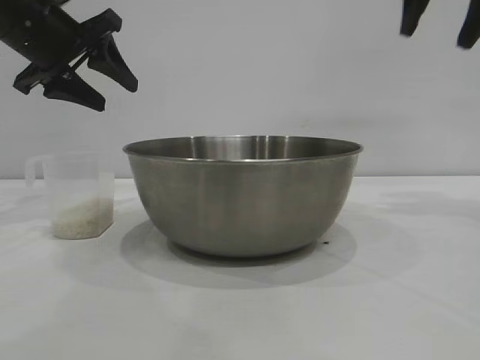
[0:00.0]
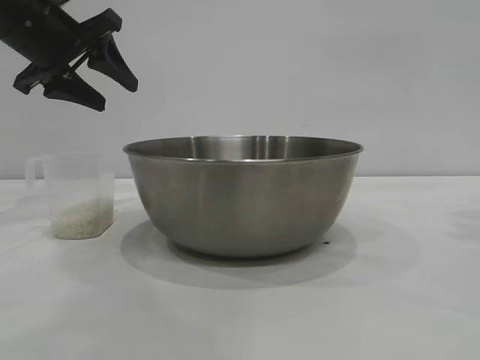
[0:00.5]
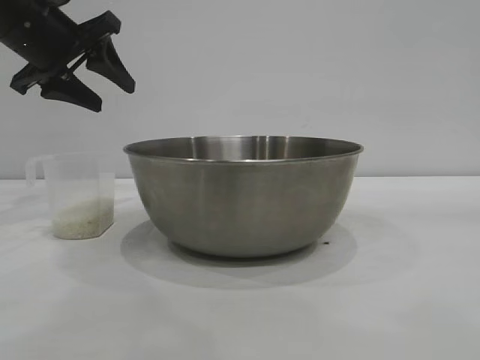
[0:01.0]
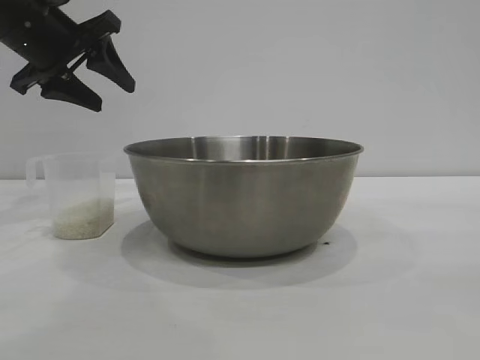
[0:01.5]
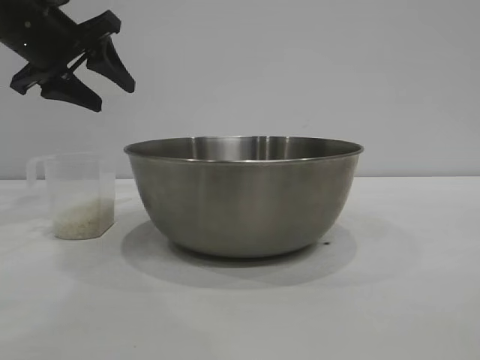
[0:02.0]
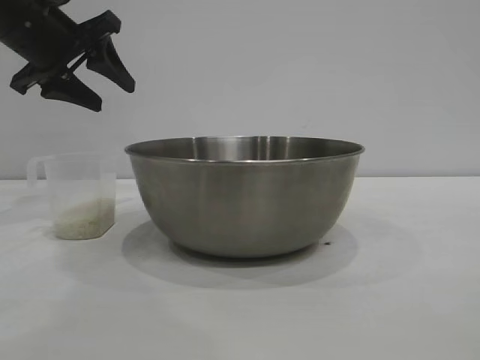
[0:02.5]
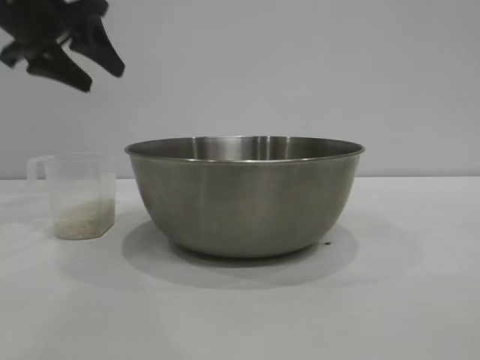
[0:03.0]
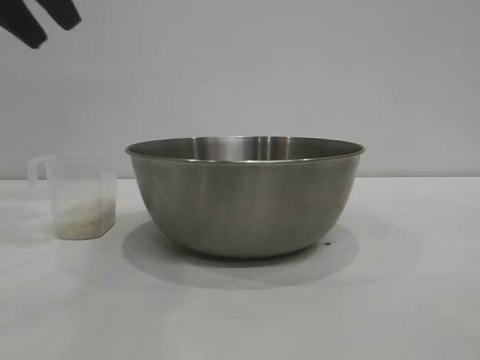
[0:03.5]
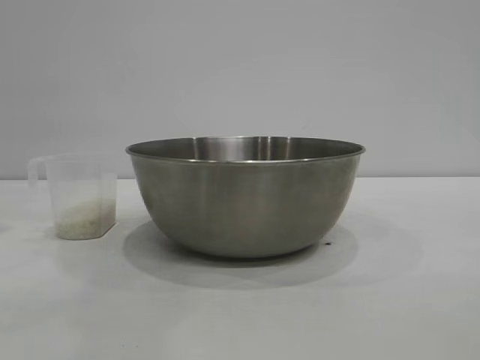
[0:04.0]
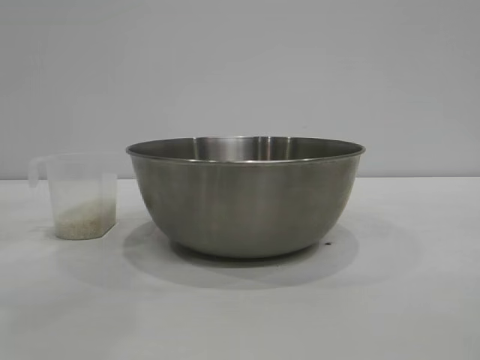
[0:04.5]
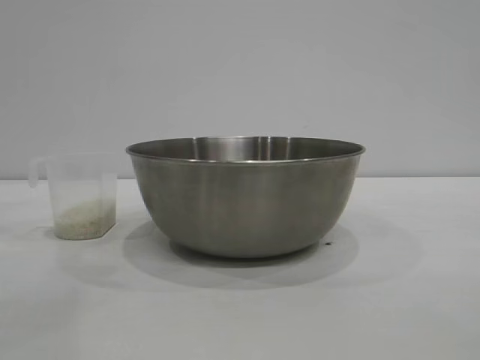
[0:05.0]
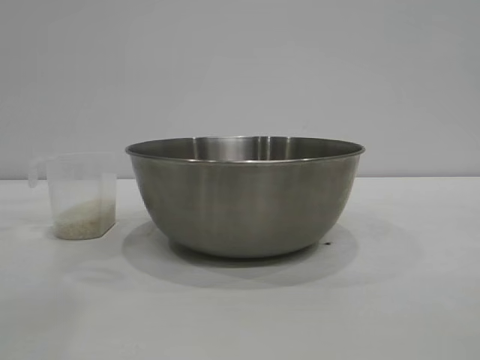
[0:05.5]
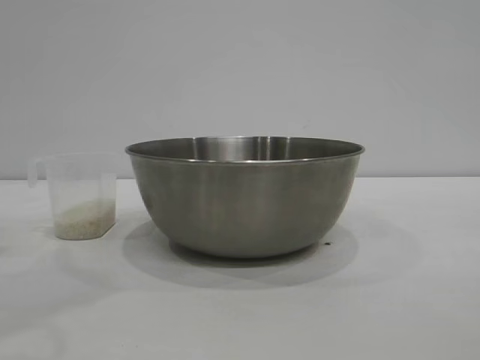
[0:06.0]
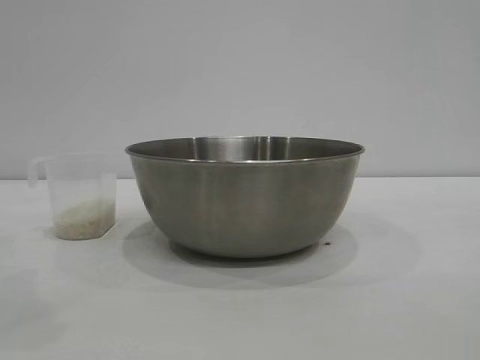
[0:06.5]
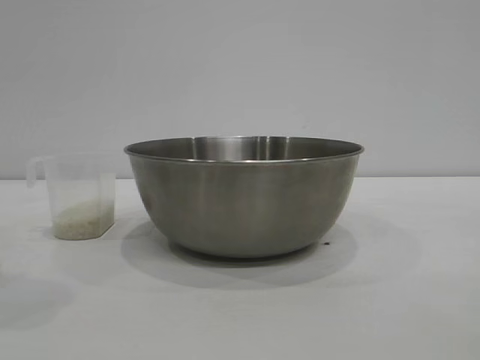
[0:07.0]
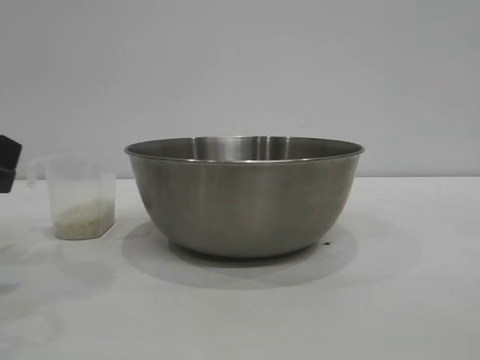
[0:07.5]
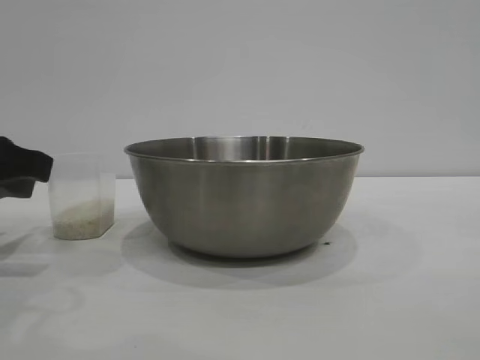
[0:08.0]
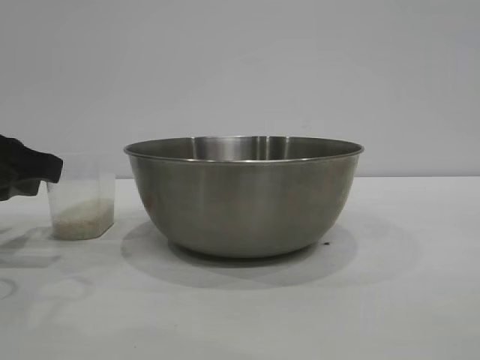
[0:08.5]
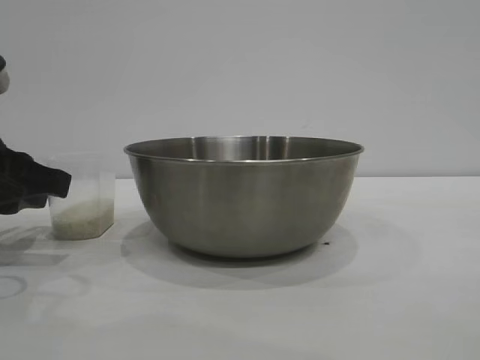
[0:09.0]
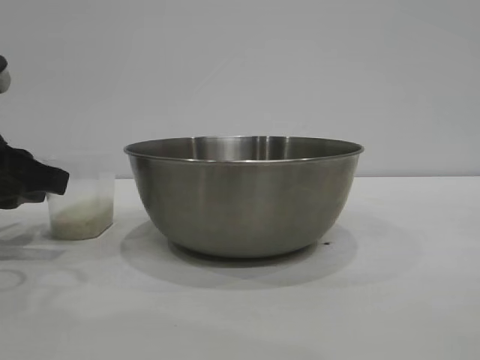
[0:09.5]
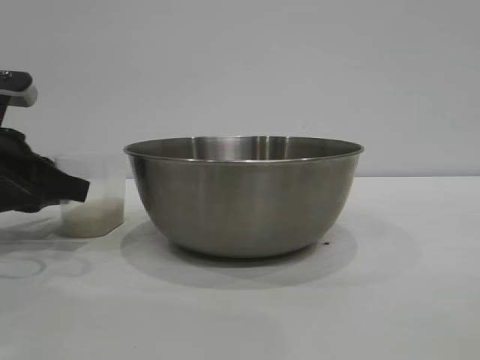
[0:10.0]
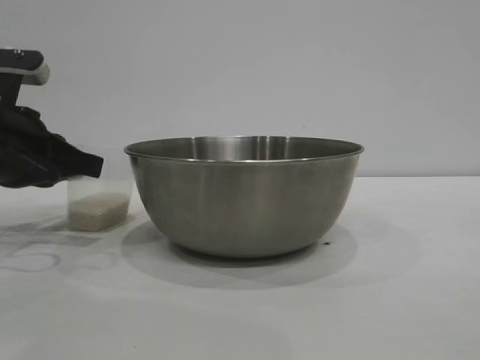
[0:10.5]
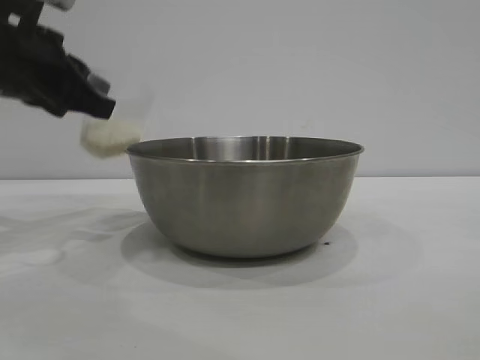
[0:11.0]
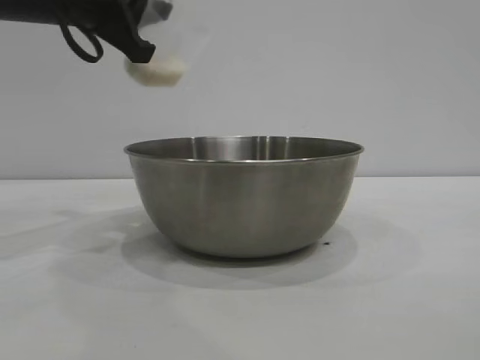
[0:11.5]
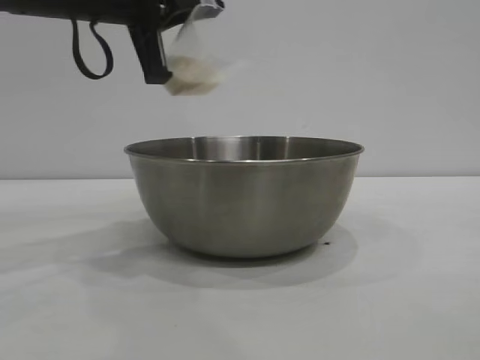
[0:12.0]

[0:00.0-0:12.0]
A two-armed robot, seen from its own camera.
Task of the whole recording: the right gripper grasp the rice container and place it in the center of the table, the left gripper grasp the rice scoop and pour the rice into the rice container.
Step, 0:00.0 to 0:10.5: Pick up the cup with rice in it with the left gripper.

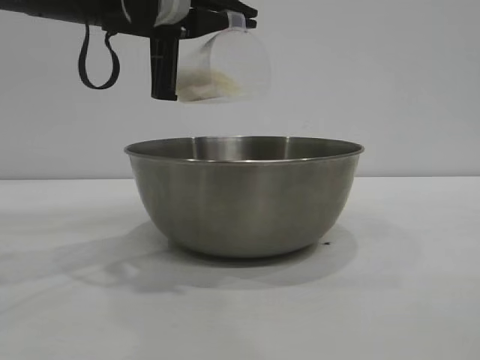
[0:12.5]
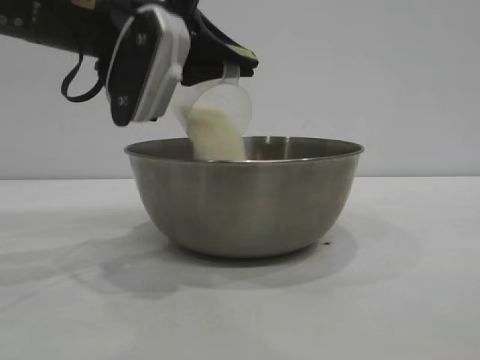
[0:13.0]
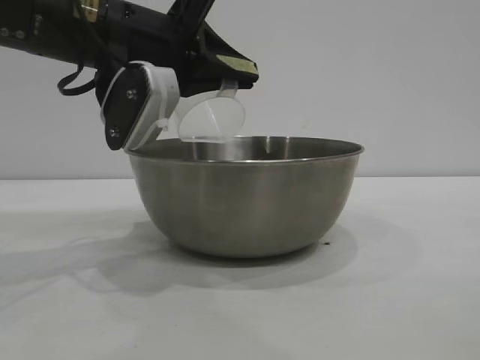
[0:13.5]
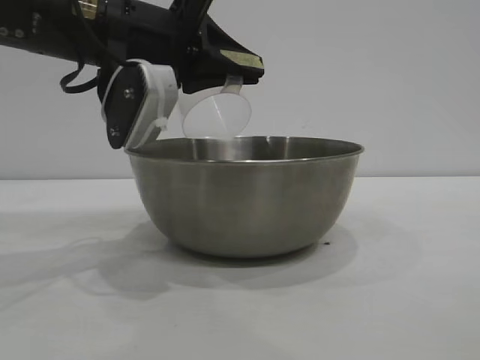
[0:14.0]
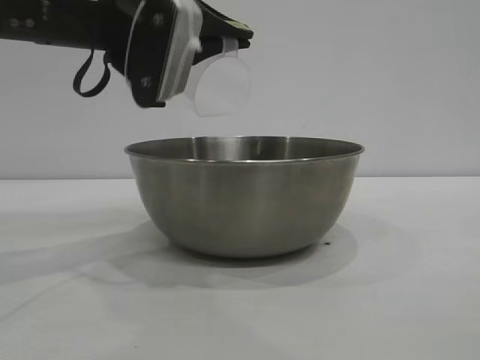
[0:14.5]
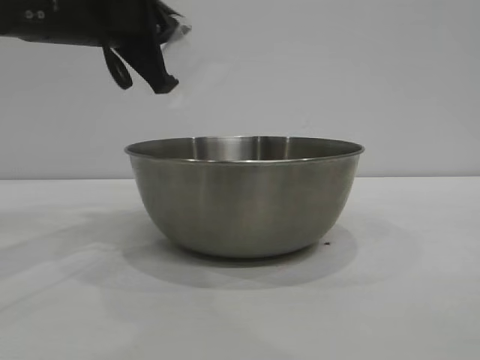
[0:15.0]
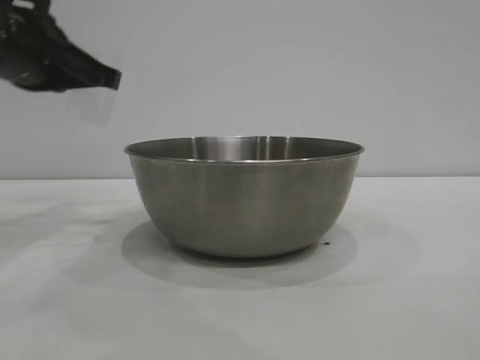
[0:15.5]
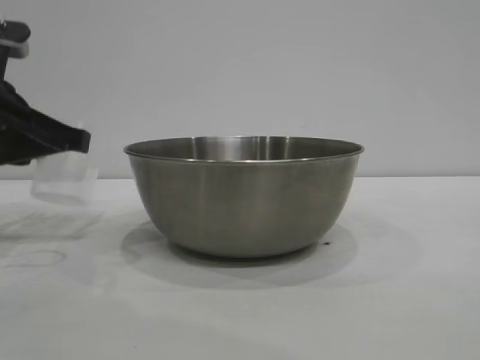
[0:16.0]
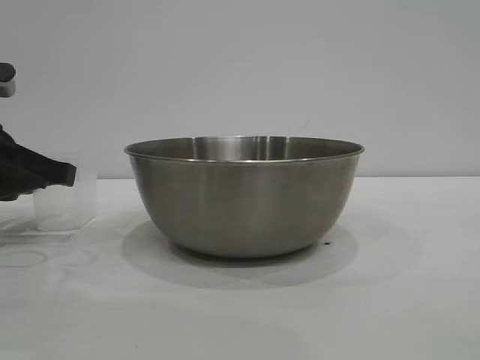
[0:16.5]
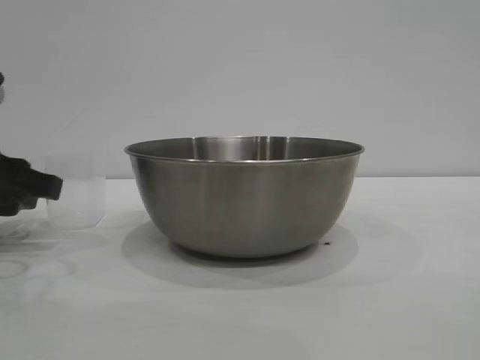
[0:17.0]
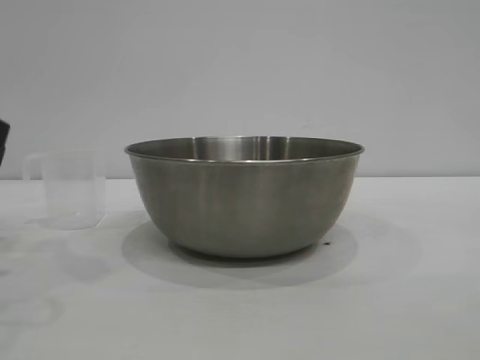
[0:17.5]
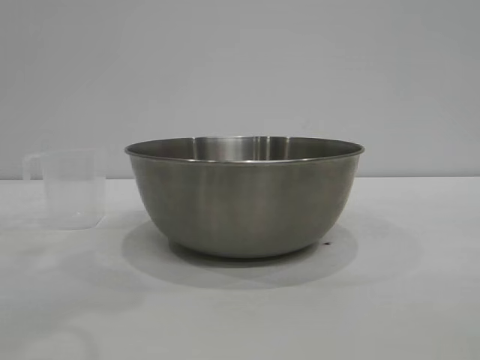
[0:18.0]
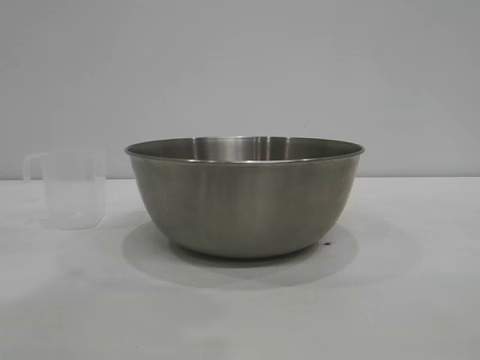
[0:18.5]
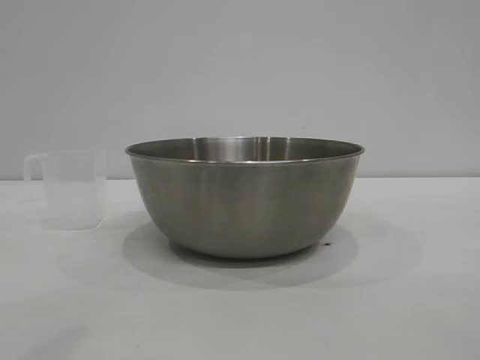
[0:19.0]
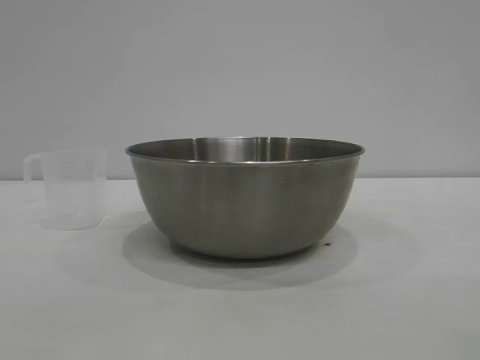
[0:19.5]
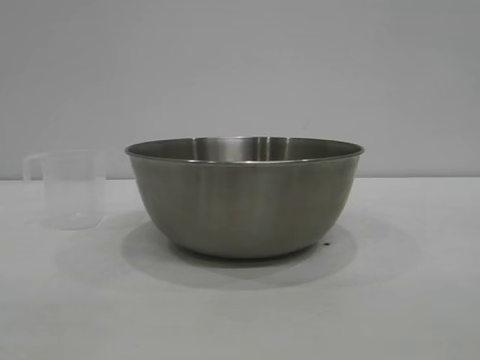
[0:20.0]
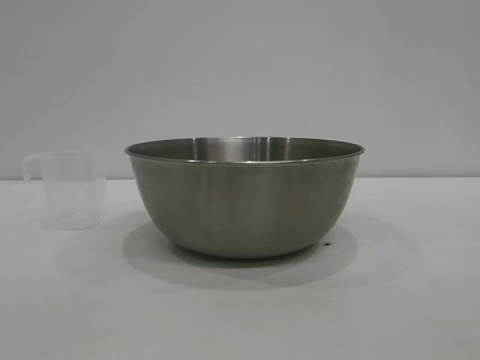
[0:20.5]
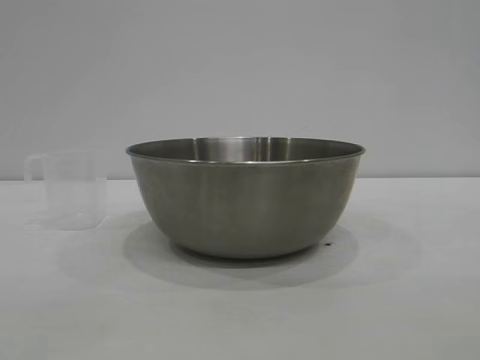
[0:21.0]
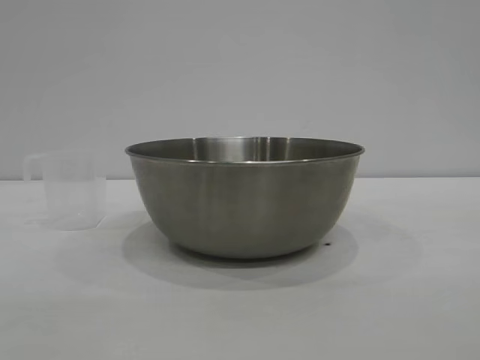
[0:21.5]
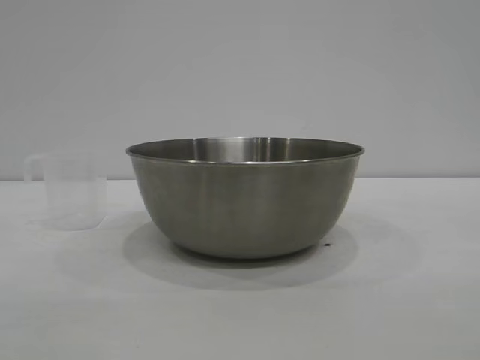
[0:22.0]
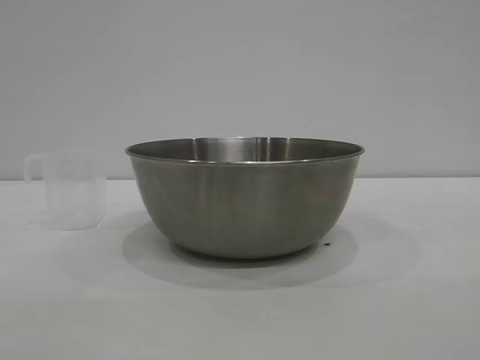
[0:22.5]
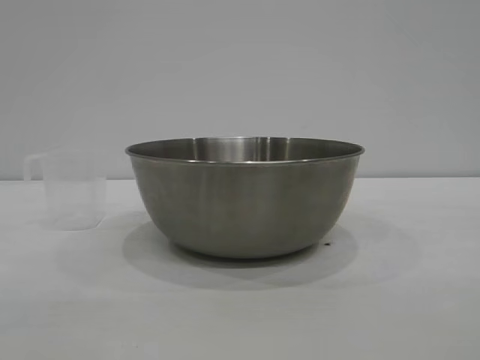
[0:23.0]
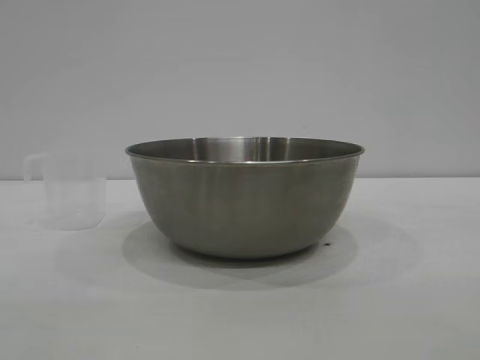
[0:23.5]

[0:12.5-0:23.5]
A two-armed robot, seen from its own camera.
Task of the whole recording: the right gripper grasp the rice container and place it in the center of the table, the left gripper grasp the rice scoop and pour the rice into the rice container.
Step, 0:12.5 to 0:14.5: Pour the rice from the cup into the bowl with the left gripper.
Step, 0:15.0 to 0:17.0: Place the cup on the table with the left gripper.
